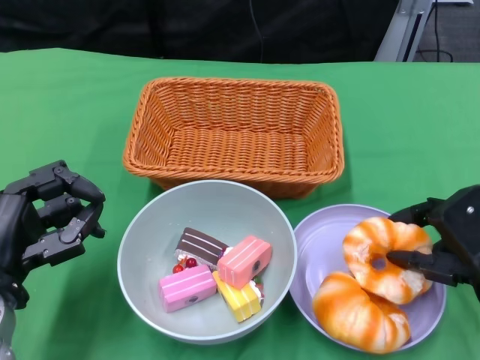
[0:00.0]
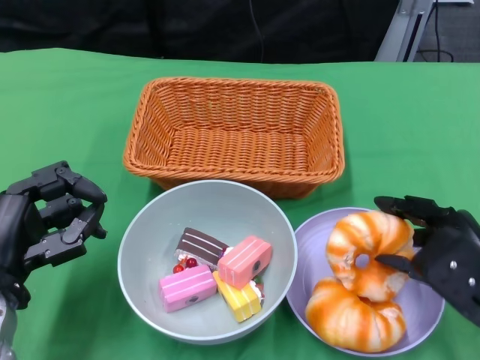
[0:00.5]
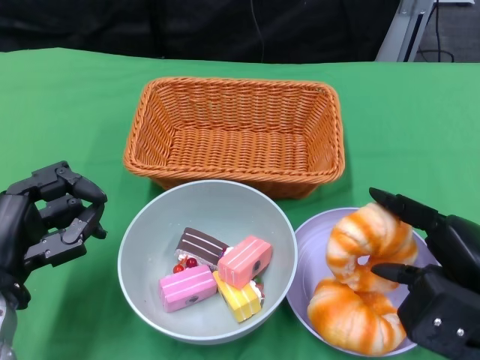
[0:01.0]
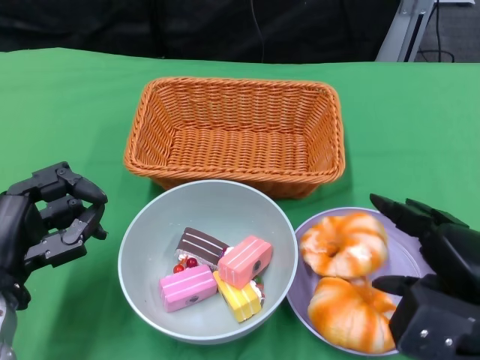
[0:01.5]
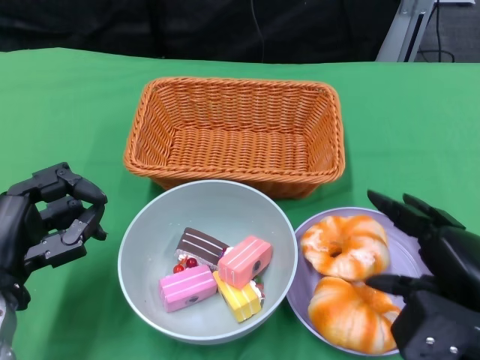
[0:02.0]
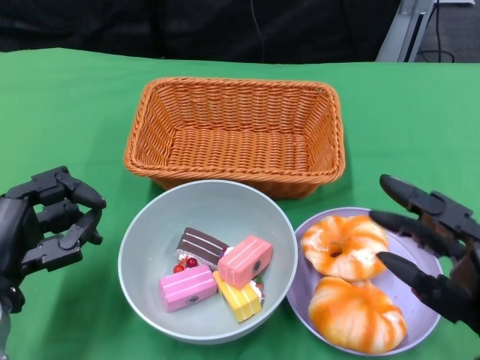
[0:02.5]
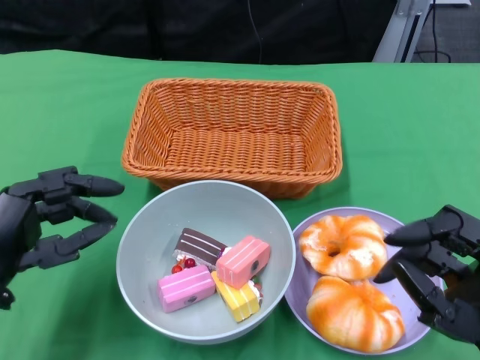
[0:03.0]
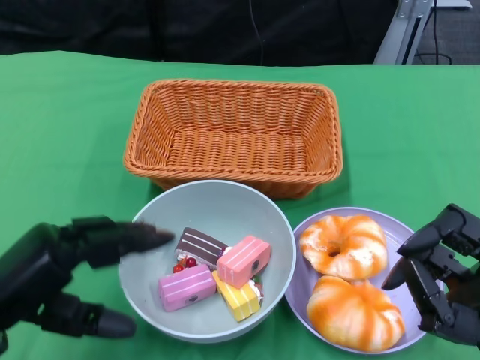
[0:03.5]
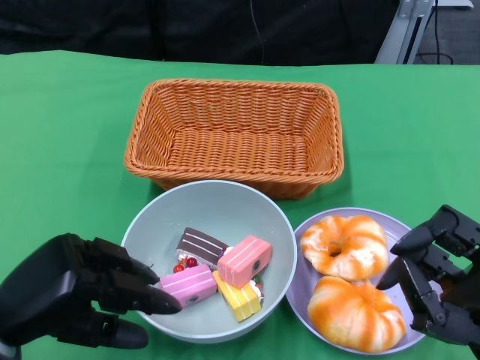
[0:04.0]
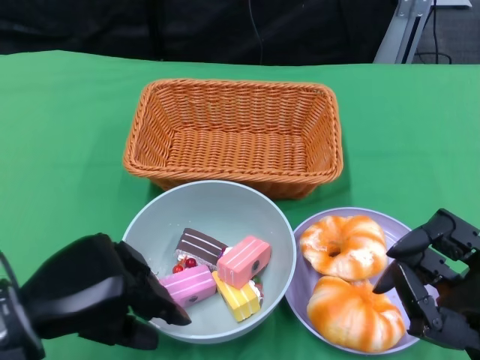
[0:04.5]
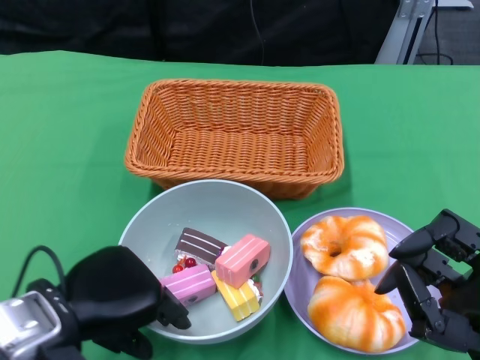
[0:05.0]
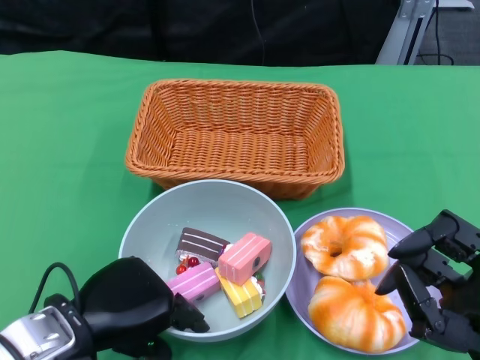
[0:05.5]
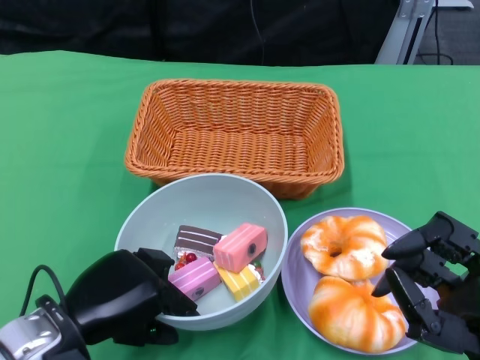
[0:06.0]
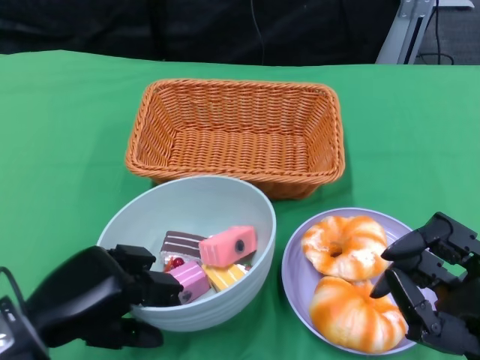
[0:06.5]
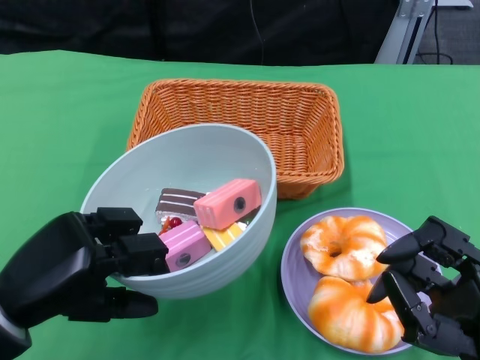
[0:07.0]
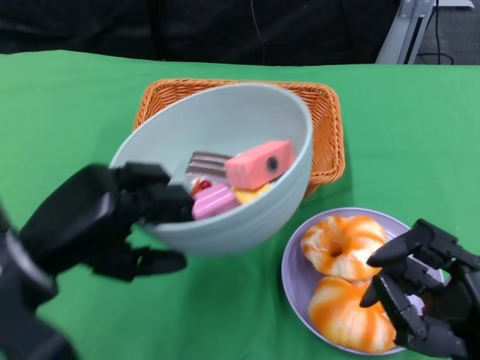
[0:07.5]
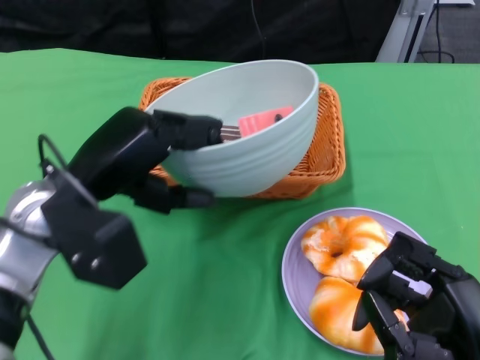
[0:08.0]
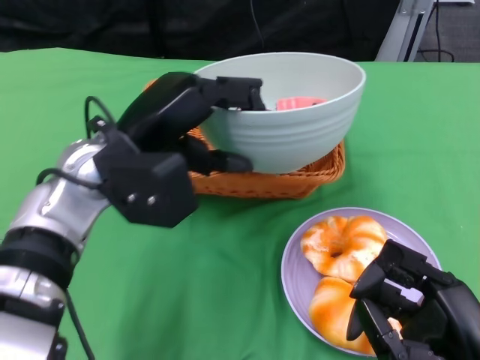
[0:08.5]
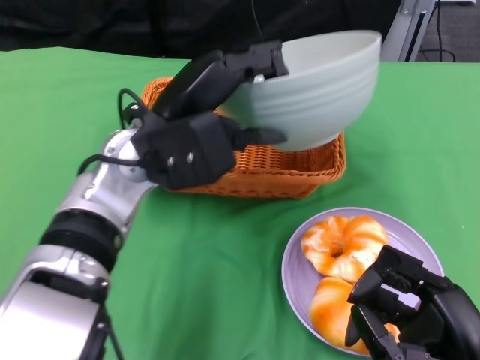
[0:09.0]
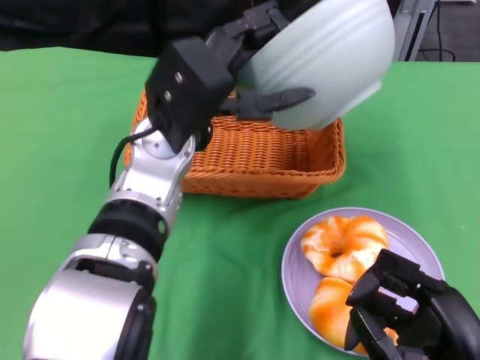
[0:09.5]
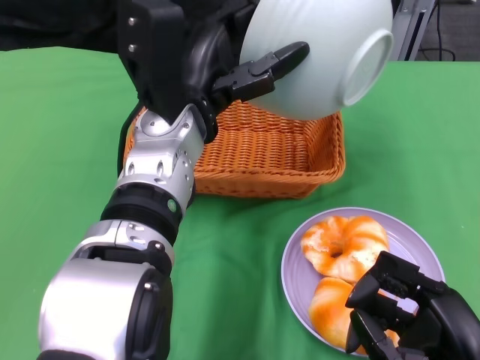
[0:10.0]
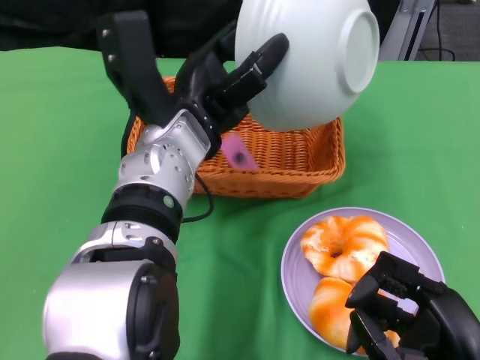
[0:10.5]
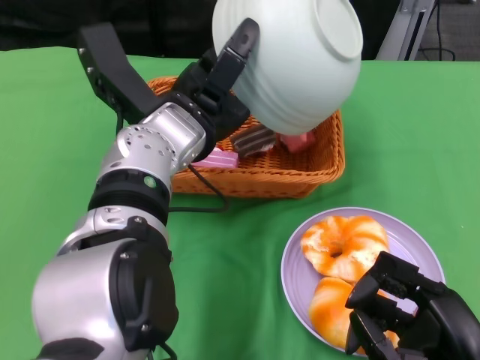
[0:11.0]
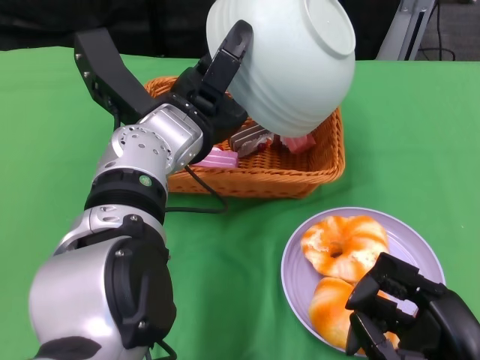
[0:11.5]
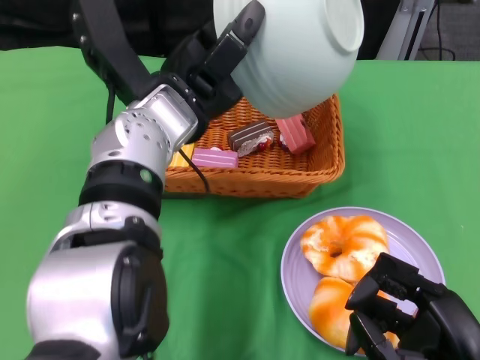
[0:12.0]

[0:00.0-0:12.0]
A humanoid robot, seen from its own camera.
Step, 0:00.0 to 0:02.0: Pick up the bread with the right gripper and place it on the plate.
Step, 0:02.5 to 0:05.5: Grasp the bowl with the left gripper.
Step, 0:06.5 to 0:11.5: Pour the cake into the basket with the left gripper.
0:02.0 to 0:04.0: The right hand shifts some 5 cm backward.
0:04.0 to 0:06.0: The left hand moves to the right, about 5 cm.
0:06.0 to 0:08.0: The left hand shifts approximately 10 cm upward and forward.
0:08.0 to 0:10.0: The left hand is displaced to the right and forward by some 15 cm.

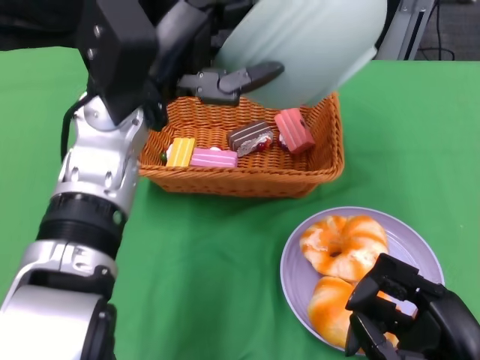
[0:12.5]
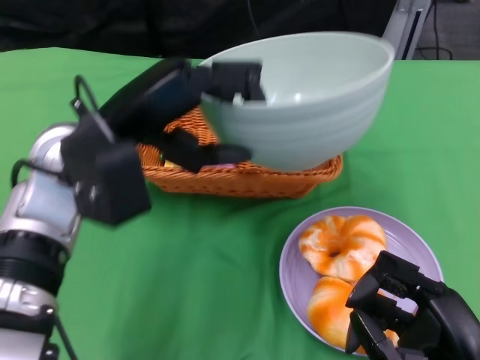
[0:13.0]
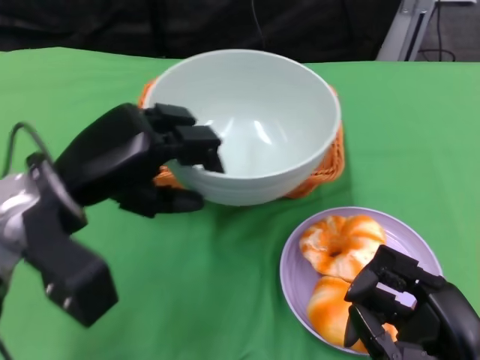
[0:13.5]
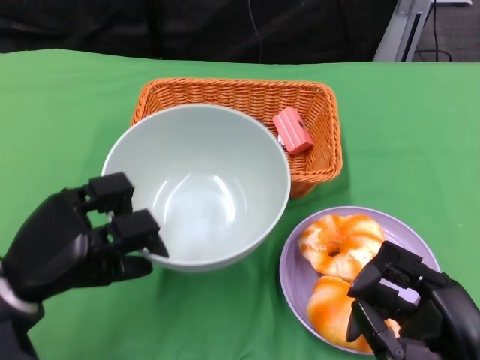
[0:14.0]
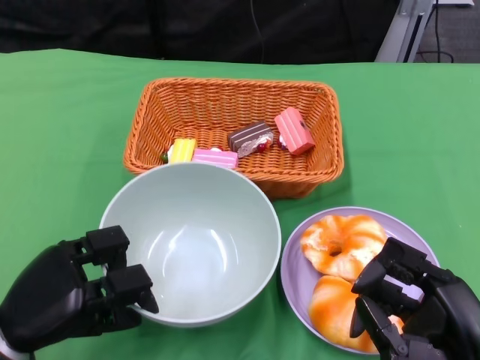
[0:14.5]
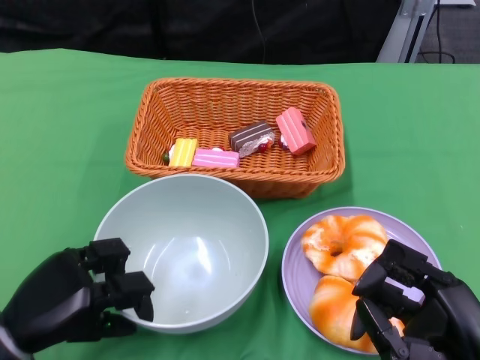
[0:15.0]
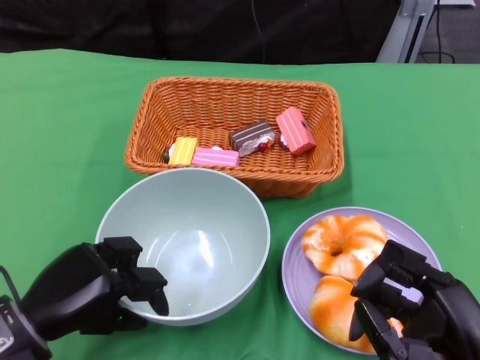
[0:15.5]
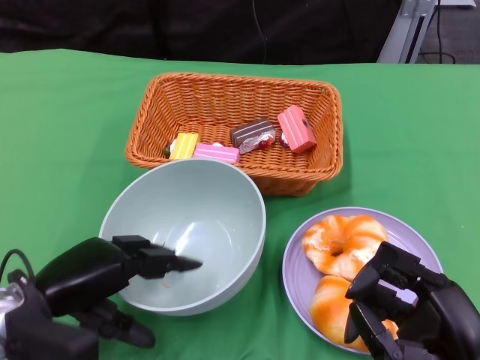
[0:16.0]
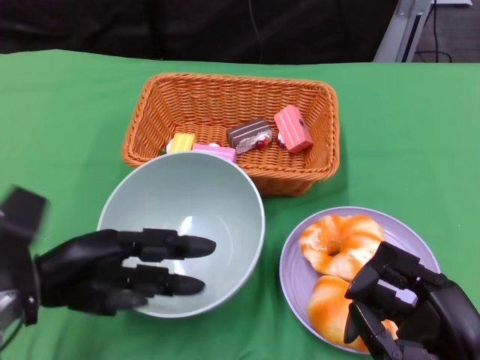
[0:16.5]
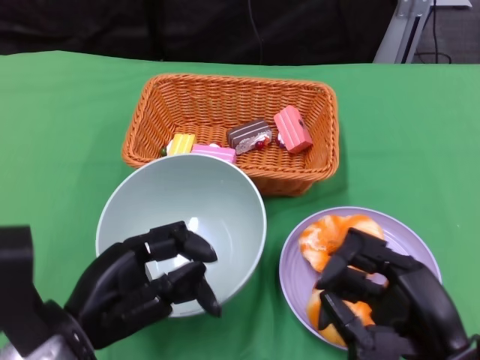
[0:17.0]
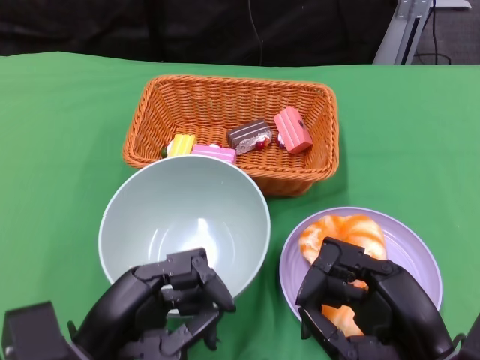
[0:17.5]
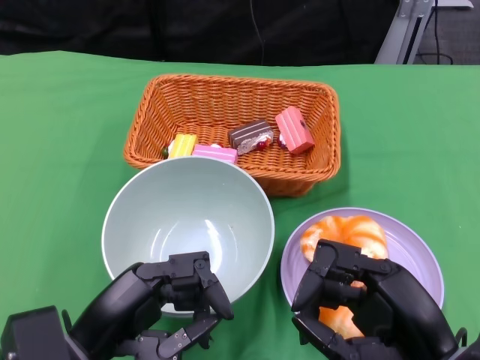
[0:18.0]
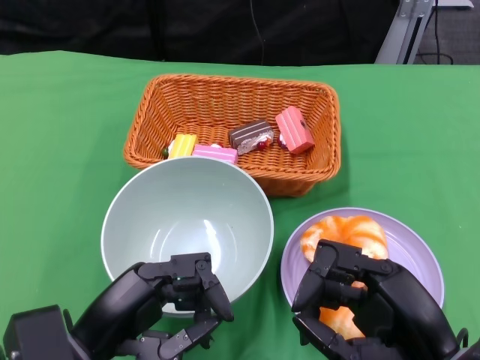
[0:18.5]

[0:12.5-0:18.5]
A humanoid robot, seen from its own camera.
Step, 0:12.5 to 0:16.5: Place the bowl on the table with the left gripper.
0:12.5 to 0:14.5: The left hand goes some 25 cm downward, to the left and backward.
0:14.5 to 0:16.5: The left hand ends up approximately 5 cm from where it was.
0:16.5 to 0:18.5: The left hand shifts approximately 5 cm backward.
